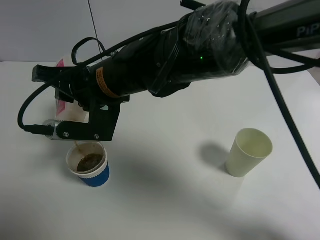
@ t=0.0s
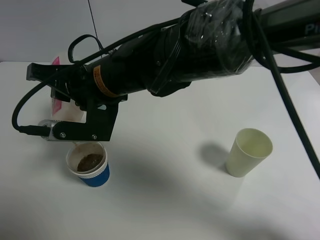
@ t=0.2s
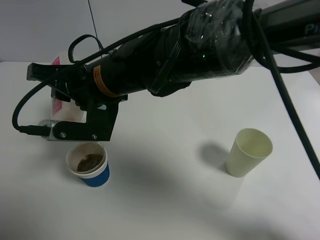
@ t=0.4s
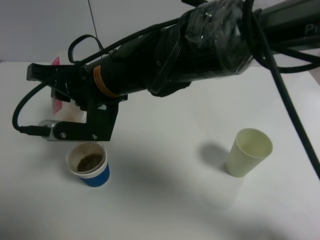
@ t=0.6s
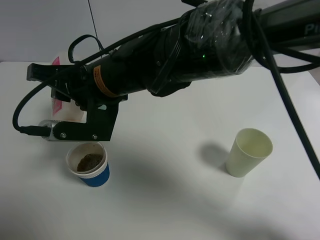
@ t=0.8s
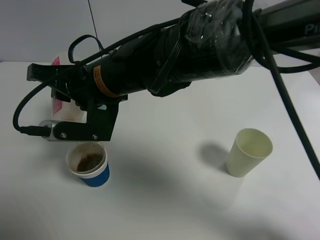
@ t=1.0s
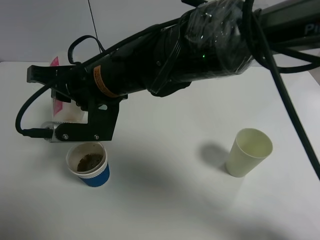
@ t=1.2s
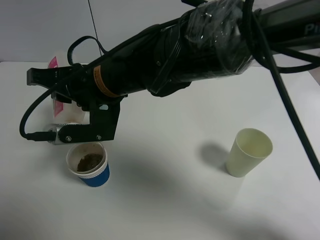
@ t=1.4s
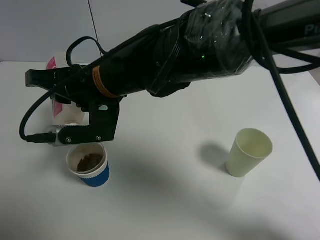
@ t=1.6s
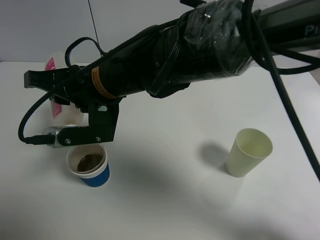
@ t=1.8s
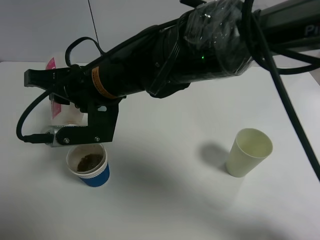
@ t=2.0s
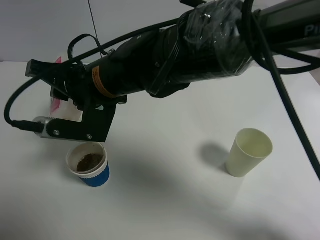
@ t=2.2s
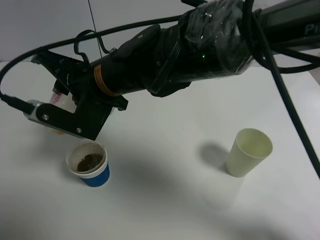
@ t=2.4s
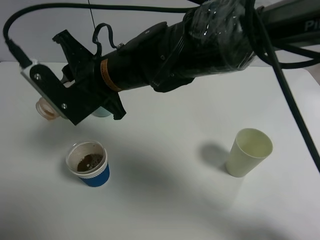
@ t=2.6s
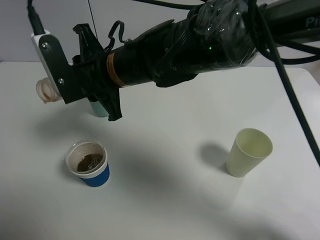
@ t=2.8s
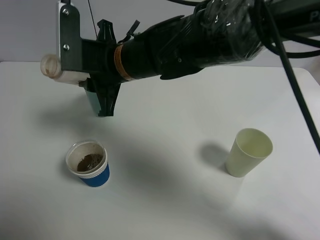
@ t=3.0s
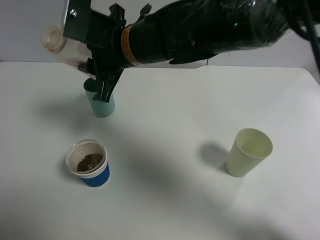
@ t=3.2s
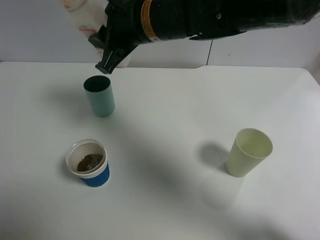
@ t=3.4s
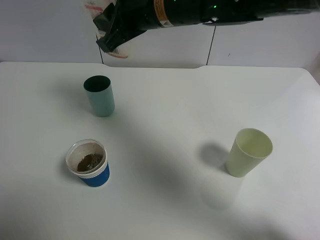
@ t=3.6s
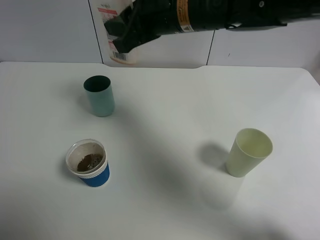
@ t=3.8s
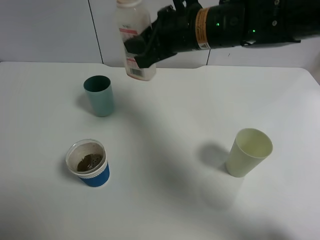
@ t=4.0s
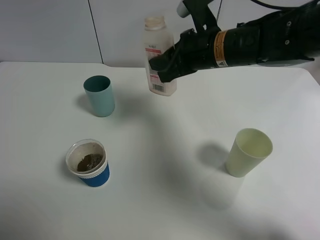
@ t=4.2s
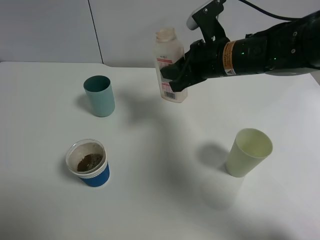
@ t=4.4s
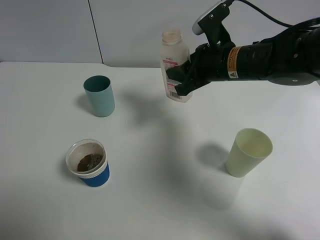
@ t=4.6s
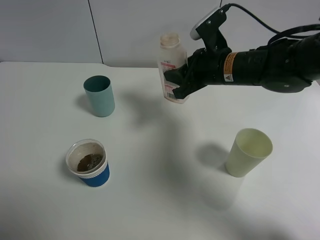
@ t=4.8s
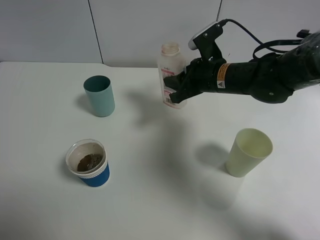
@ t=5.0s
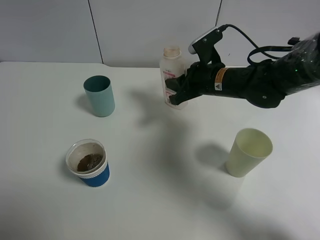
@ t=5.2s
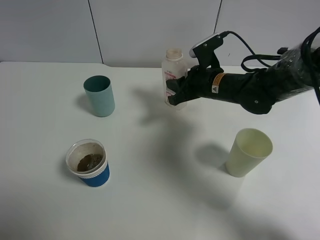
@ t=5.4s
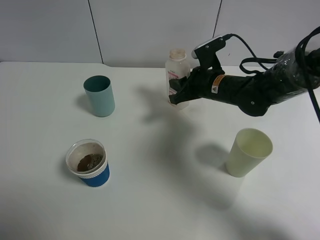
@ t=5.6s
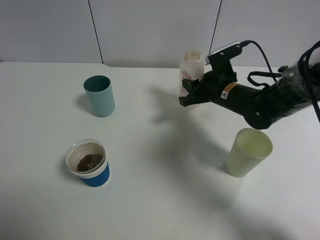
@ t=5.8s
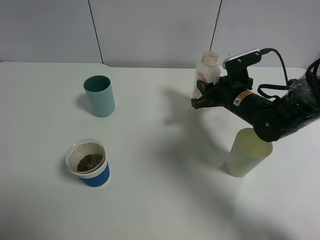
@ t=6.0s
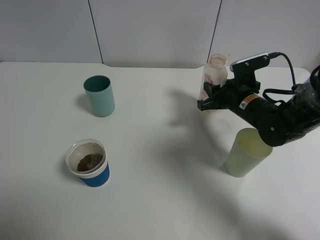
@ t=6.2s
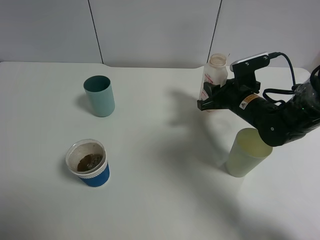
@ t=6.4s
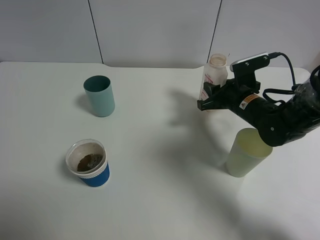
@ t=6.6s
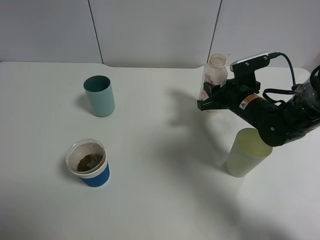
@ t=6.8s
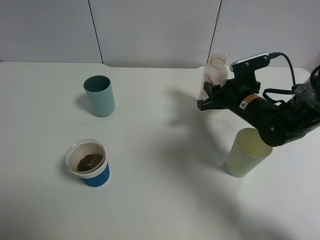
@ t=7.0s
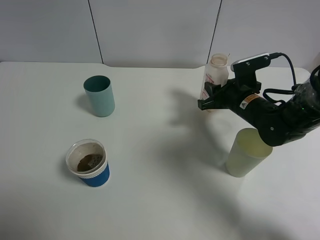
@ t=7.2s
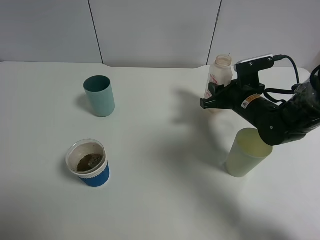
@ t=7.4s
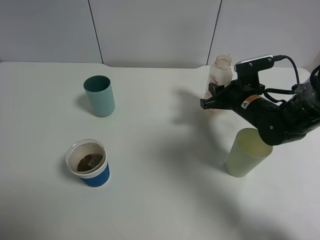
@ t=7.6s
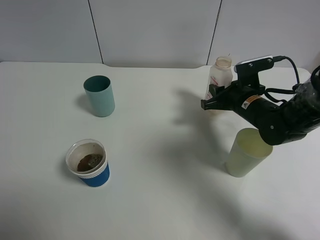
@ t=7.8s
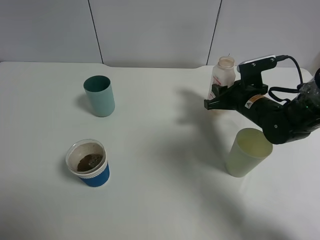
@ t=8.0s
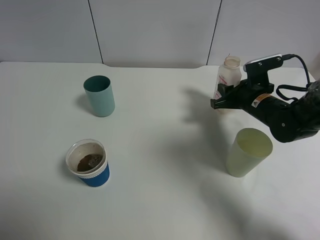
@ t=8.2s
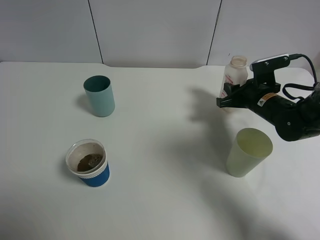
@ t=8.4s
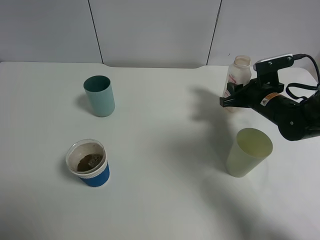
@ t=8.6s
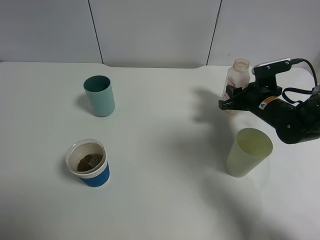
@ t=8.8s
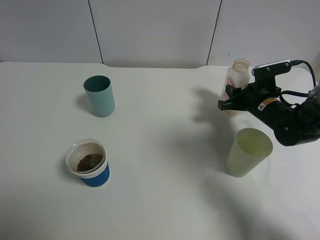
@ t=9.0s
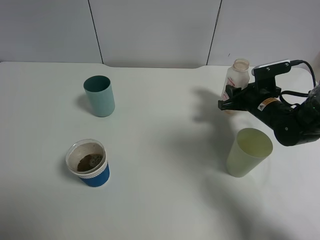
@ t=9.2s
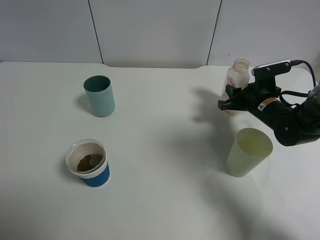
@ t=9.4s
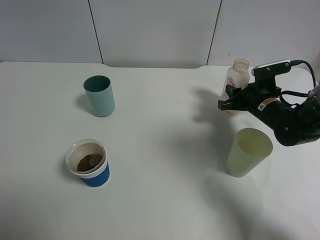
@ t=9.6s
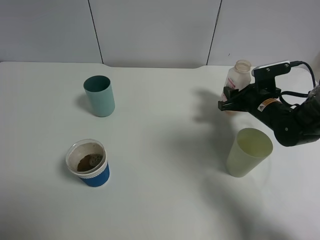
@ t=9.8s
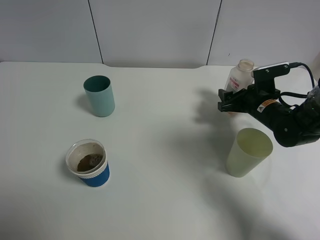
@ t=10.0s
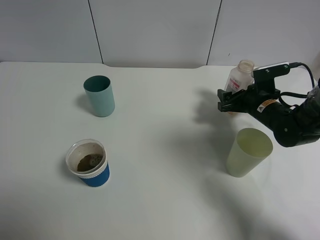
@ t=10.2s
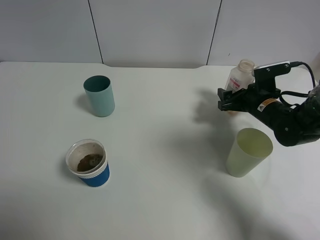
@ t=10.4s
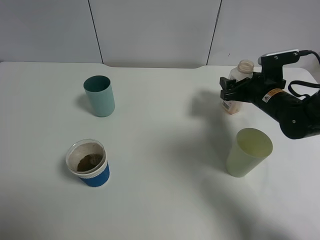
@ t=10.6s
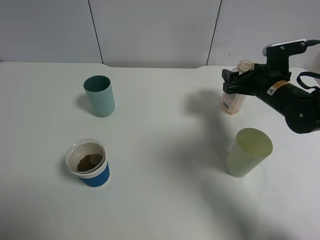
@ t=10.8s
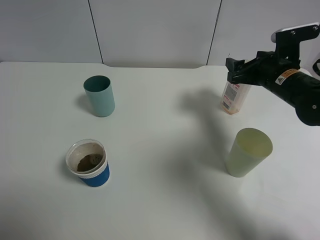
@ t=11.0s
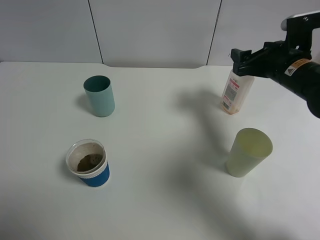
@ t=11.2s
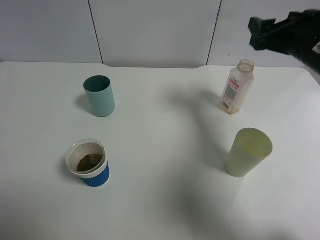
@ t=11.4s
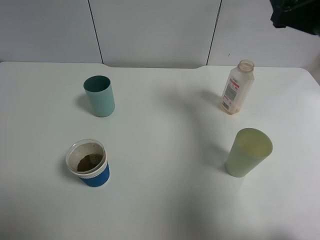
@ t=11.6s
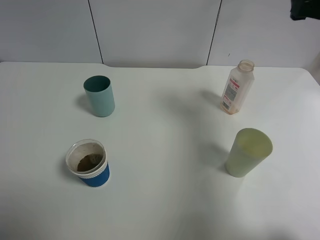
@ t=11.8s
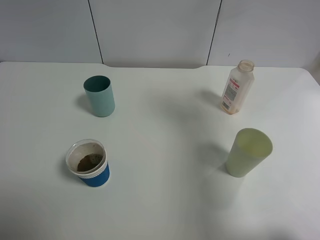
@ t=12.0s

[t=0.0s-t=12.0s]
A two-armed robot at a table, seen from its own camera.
Task of the whole recording: use a gripper to hold the bottle of the drink and pour it into a random cup.
Step, t=0.2s to t=10.0s: Place the cranberry juice bottle on the table with the right gripper.
t=0.0s to t=1.6s: The grippers move only a little.
t=3.0s to t=4.4s: The right gripper heads to the right, covering about 15 cm.
t=4.4s to t=6.0s: The right gripper travels downward and to the right by roughly 10 cm.
t=6.0s to t=7.6s: The grippers make only small movements.
t=7.6s to t=9.0s: The right gripper changes place by about 5 cm.
t=9.0s to t=10.4s: The right gripper opens.
t=10.4s to t=12.0s: The right gripper travels upward and backward by about 30 cm.

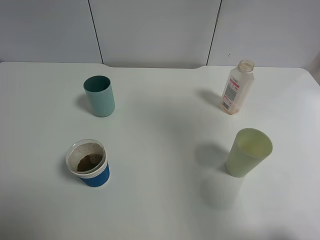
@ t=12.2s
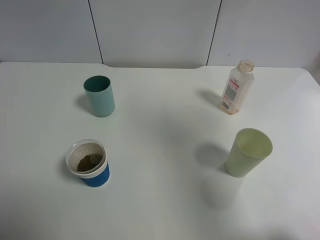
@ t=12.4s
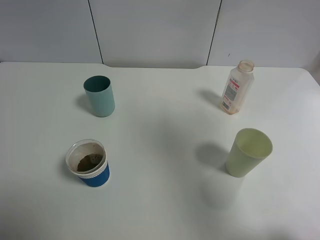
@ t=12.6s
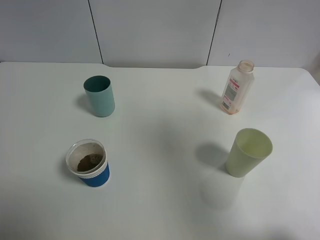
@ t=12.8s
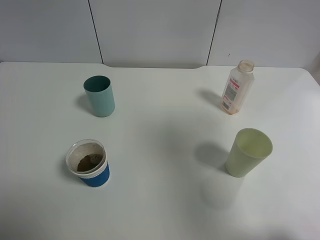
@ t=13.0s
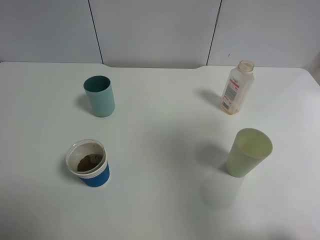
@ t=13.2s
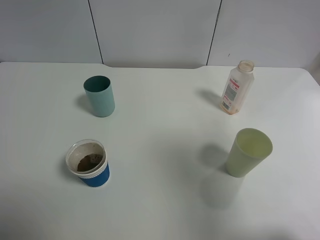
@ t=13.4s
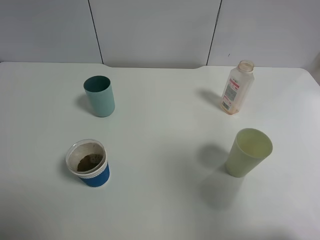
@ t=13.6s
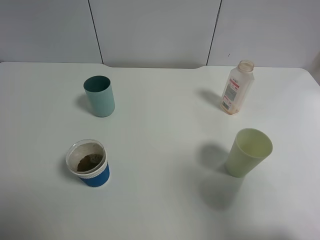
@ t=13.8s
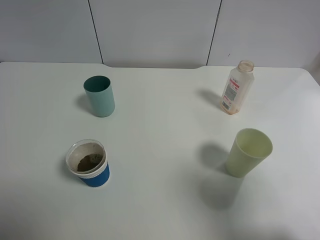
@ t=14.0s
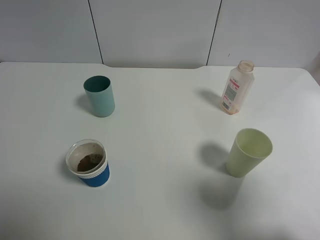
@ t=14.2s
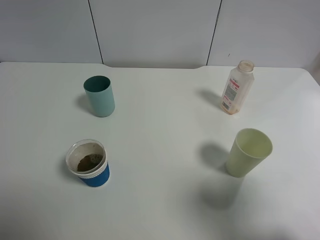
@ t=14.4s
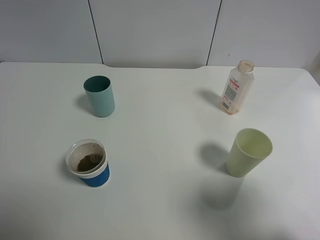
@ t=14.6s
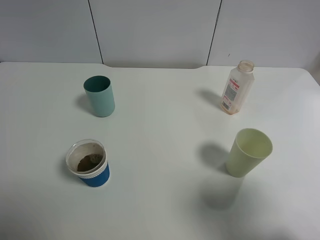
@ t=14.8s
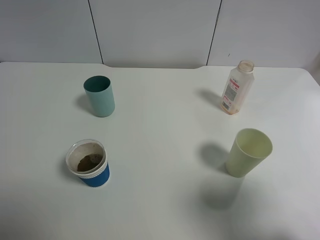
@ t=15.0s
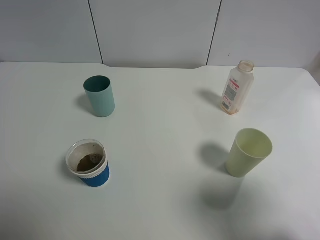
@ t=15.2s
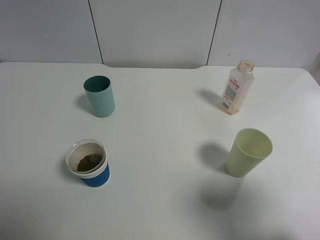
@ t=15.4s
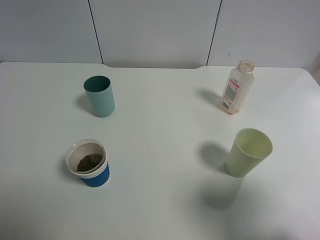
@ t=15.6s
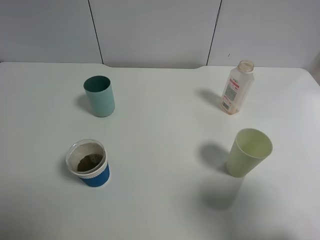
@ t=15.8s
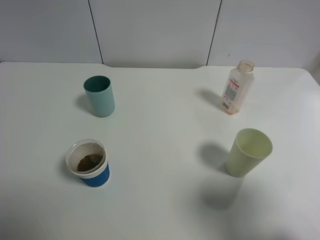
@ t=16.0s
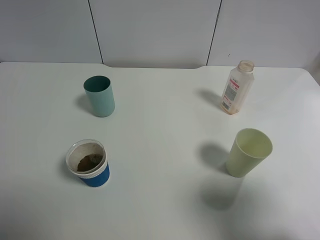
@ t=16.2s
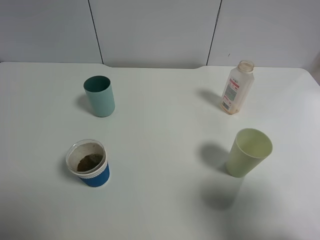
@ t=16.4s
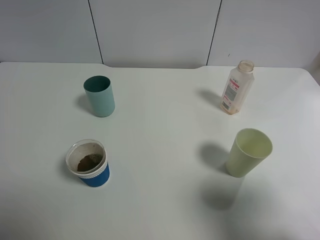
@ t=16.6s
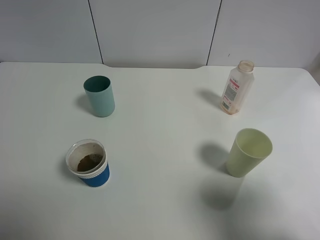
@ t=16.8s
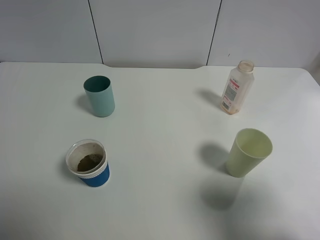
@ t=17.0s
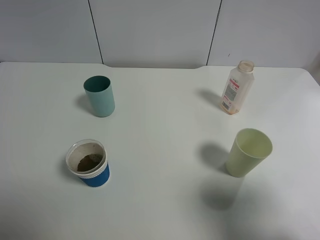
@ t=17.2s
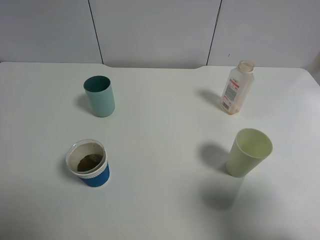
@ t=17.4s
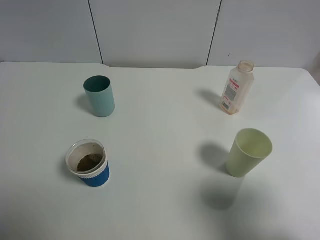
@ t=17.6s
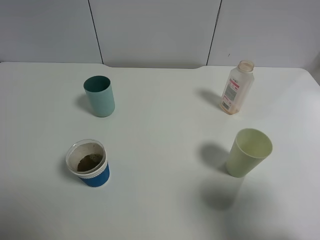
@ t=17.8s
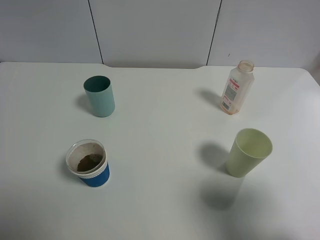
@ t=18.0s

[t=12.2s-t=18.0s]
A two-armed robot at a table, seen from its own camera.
Task of the whole recording: use a gripper to hold the bottle of the drink and pour it into a random cup.
t=12.2s to t=13.6s: The right gripper shifts about 15 cm backward.
t=13.6s to t=15.0s: The right gripper is displaced downward by roughly 10 cm.
t=16.6s to t=18.0s: Neither gripper changes place.
